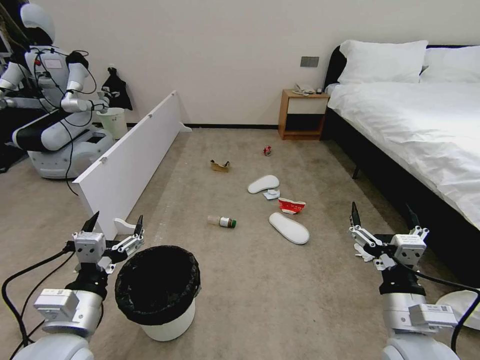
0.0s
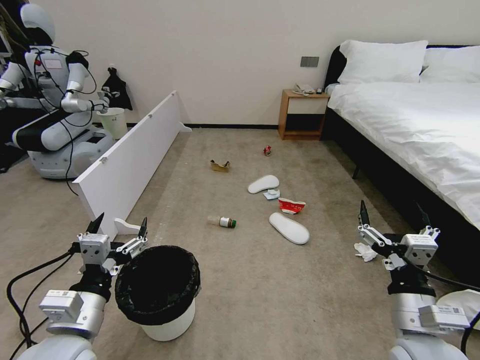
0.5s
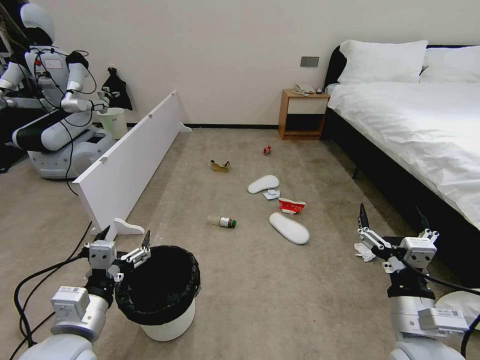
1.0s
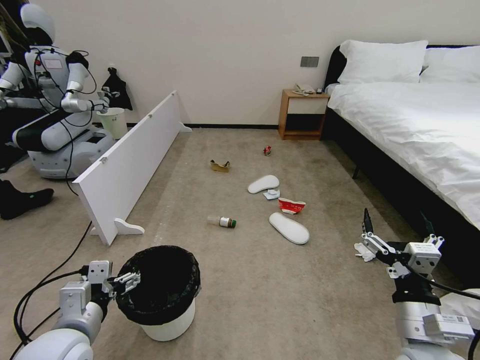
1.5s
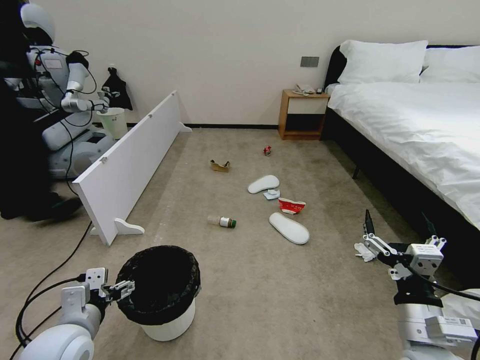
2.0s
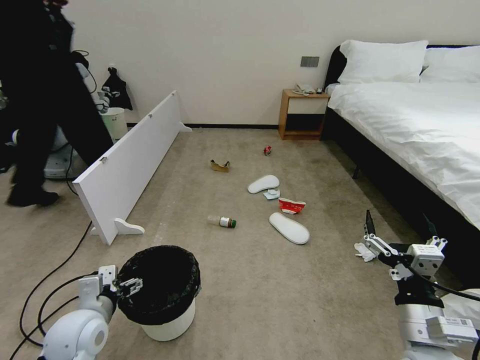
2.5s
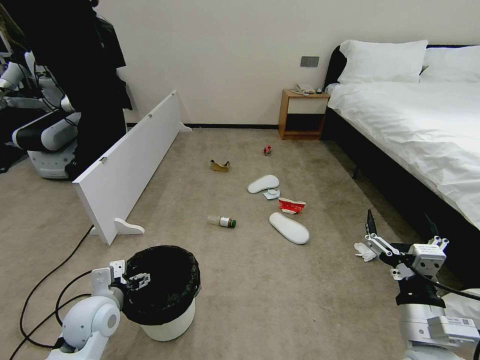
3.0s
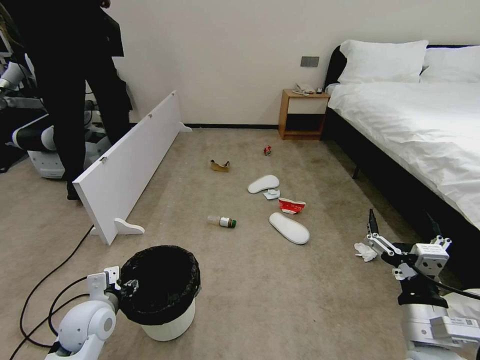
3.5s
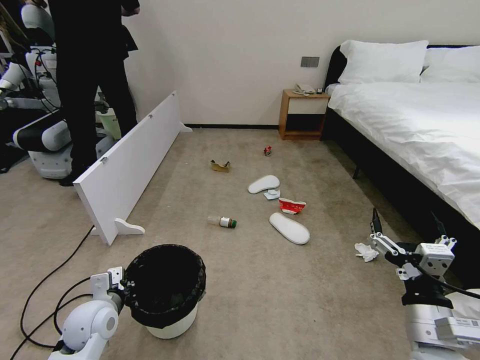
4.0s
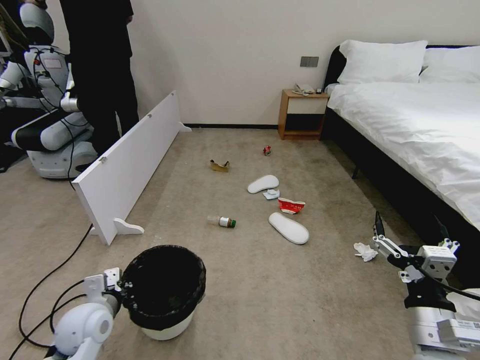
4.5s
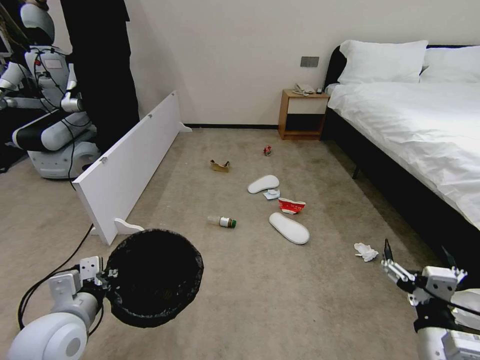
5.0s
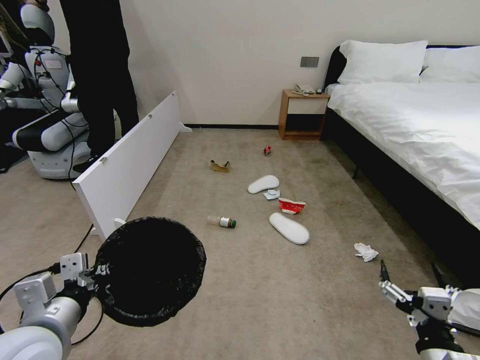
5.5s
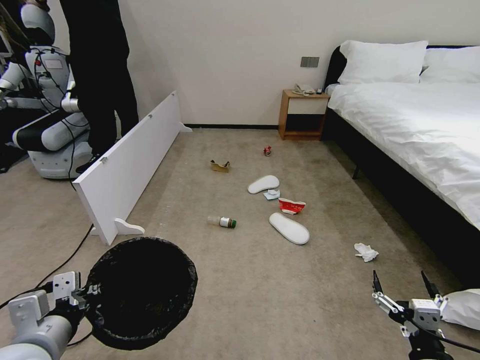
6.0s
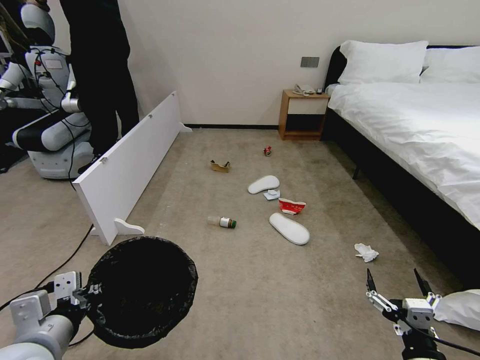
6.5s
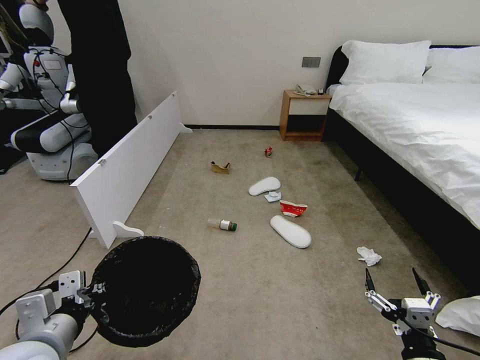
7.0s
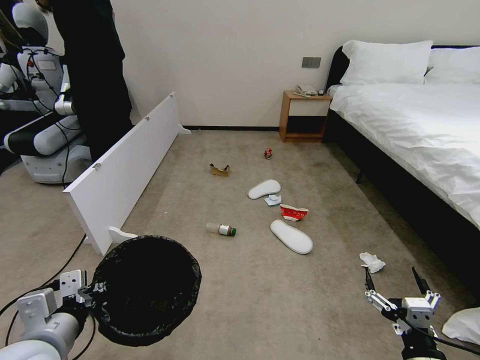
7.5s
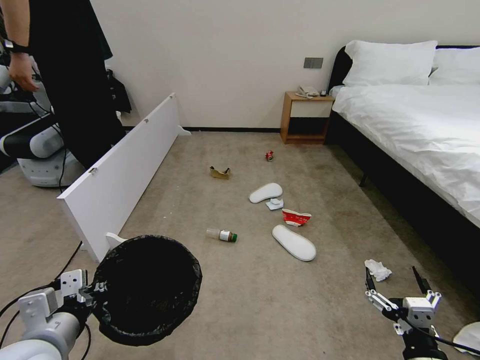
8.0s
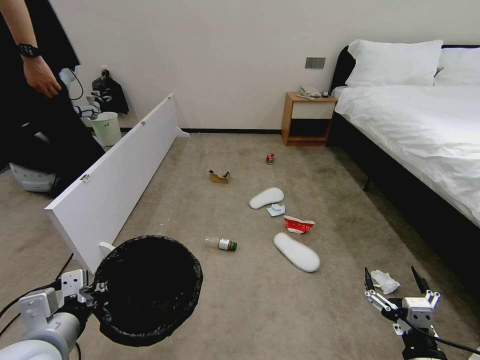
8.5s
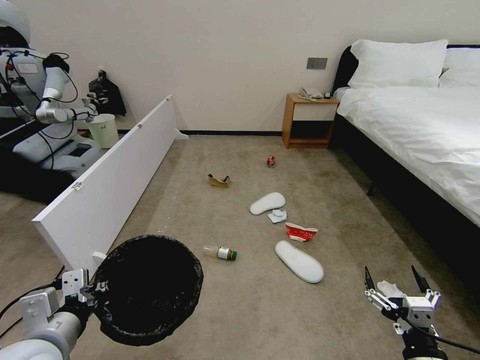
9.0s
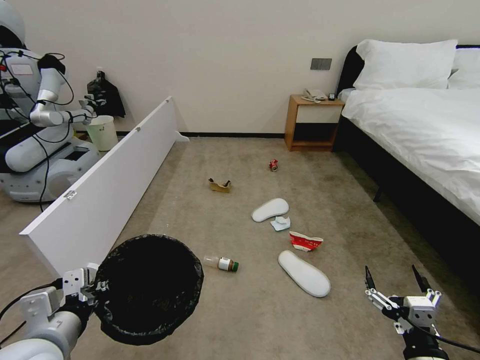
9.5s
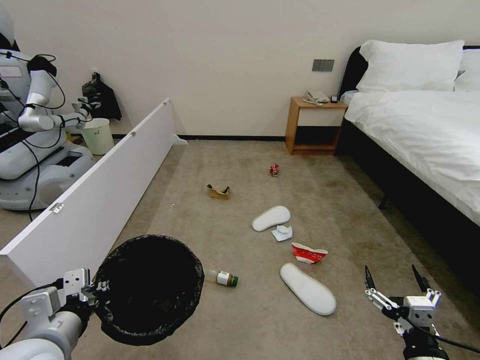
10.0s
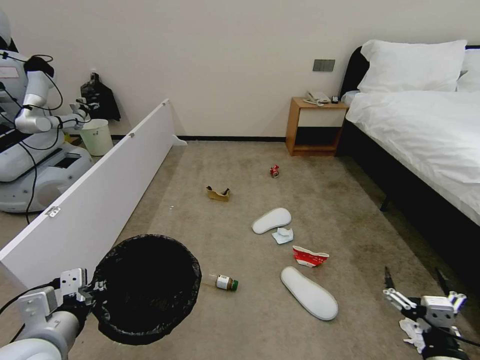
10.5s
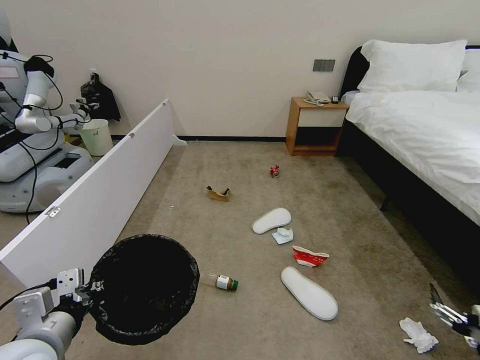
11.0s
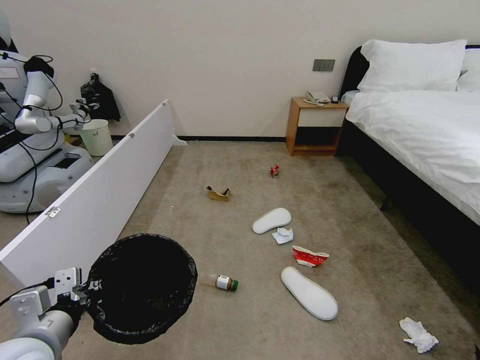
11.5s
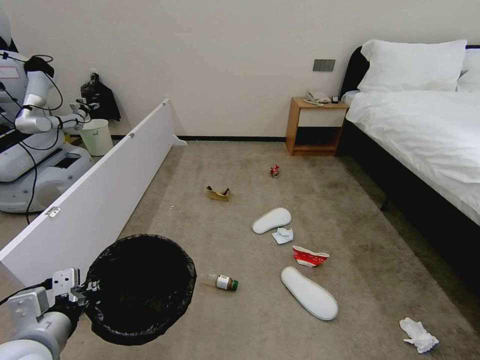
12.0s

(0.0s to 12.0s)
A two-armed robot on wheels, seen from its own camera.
Task of the whole recording: Pick up the trash bin, then pick up the garbage from the floor and place it into the trash bin.
2.0s - 4.0s: The left gripper moves forward and downward, about 10 cm, and closes its fingers.
4.0s - 6.0s: The left gripper goes some 20 cm upward and backward. Meanwhile the right gripper is displaced downward and backward by about 10 cm.
10.0s - 12.0s: The right gripper shifts some 25 cm to the right and downward.

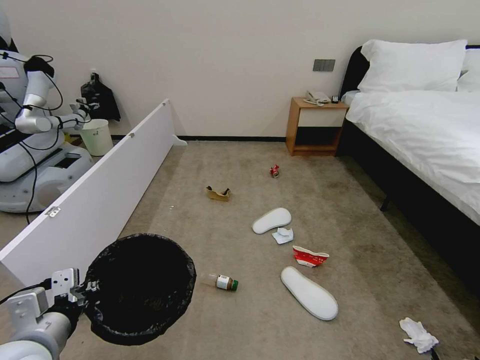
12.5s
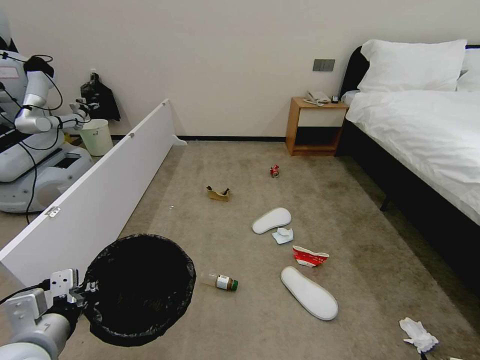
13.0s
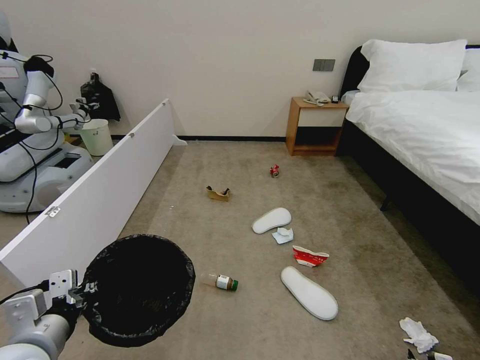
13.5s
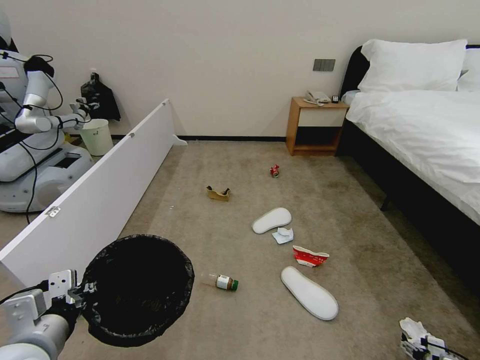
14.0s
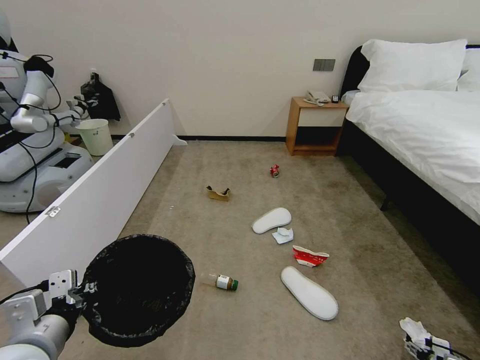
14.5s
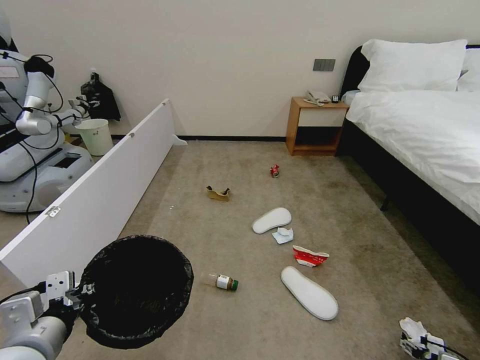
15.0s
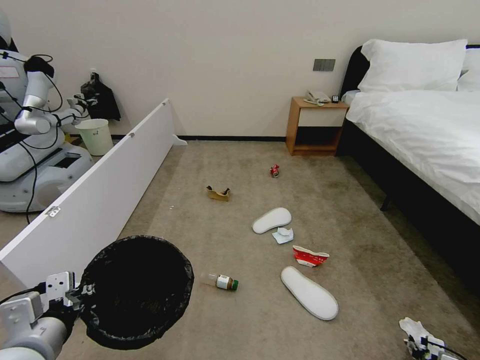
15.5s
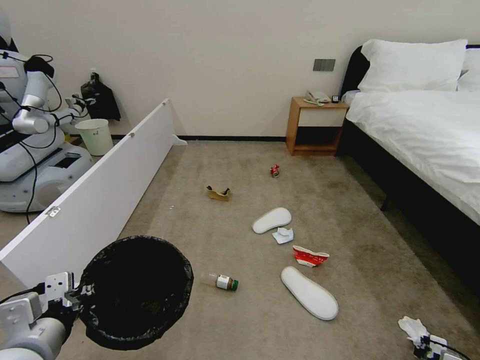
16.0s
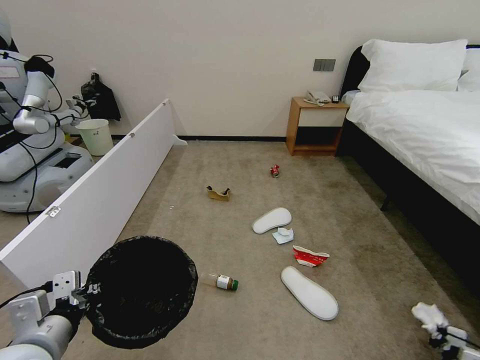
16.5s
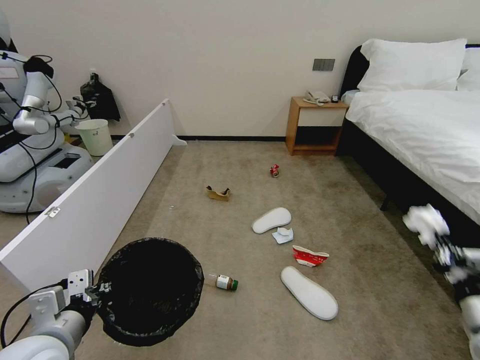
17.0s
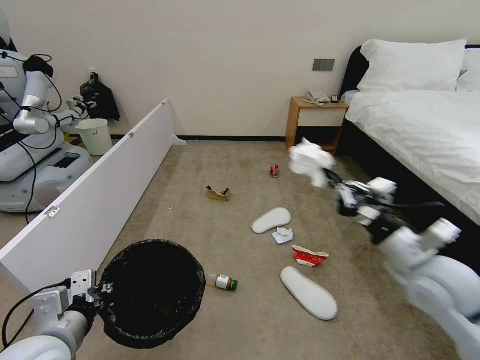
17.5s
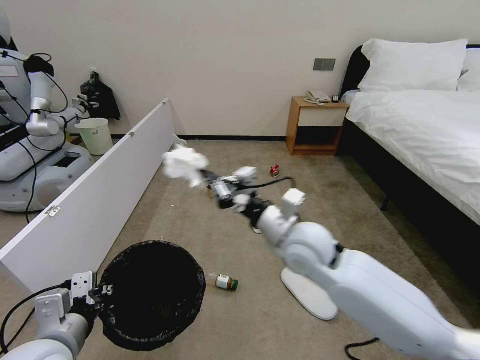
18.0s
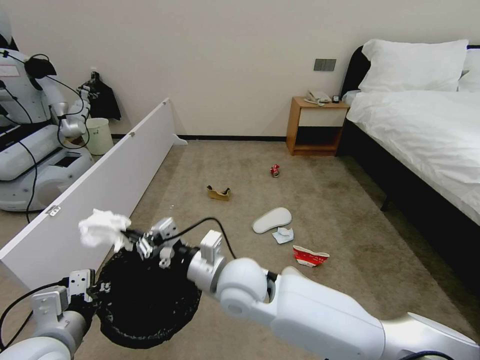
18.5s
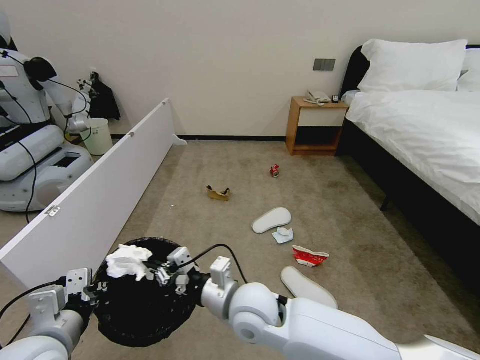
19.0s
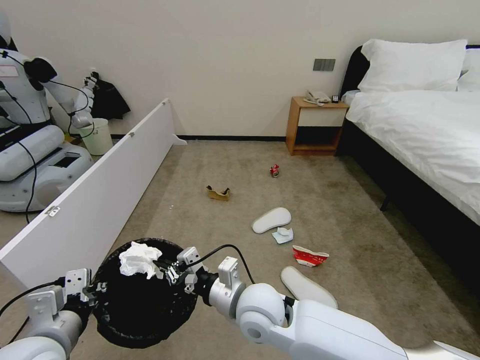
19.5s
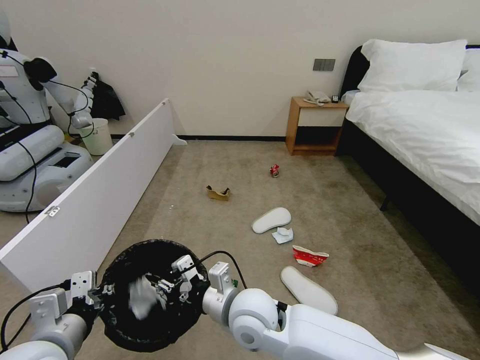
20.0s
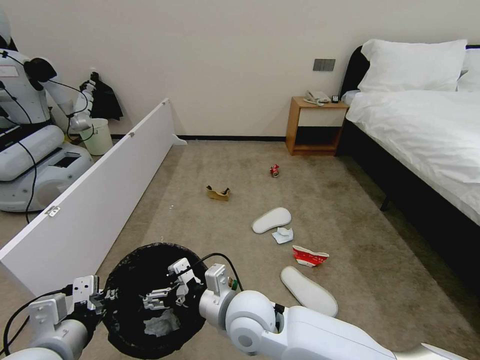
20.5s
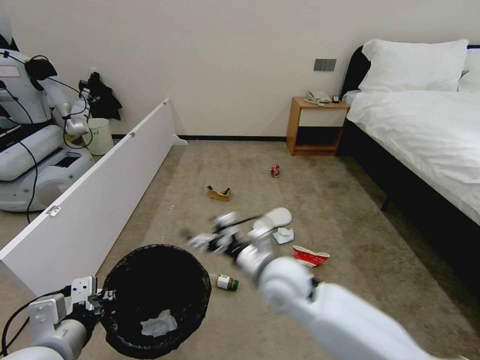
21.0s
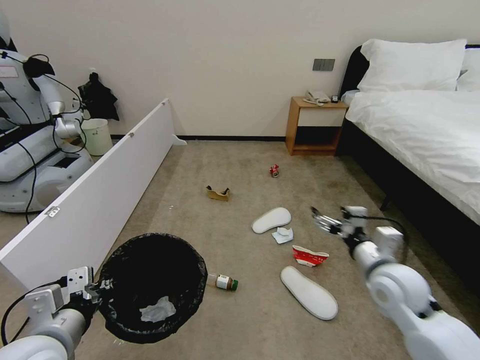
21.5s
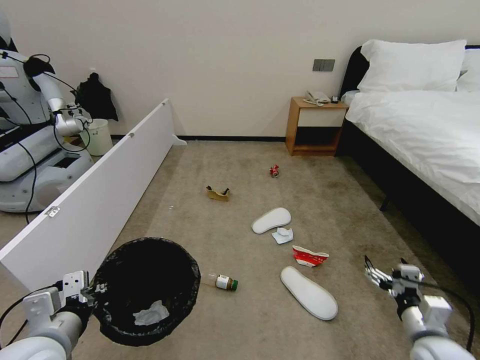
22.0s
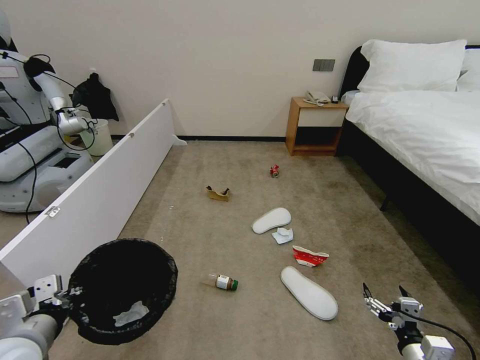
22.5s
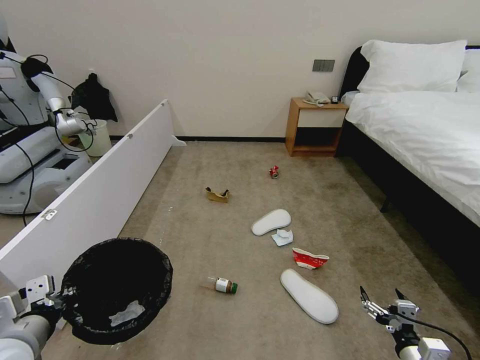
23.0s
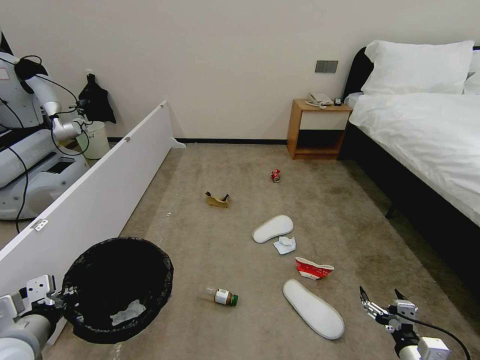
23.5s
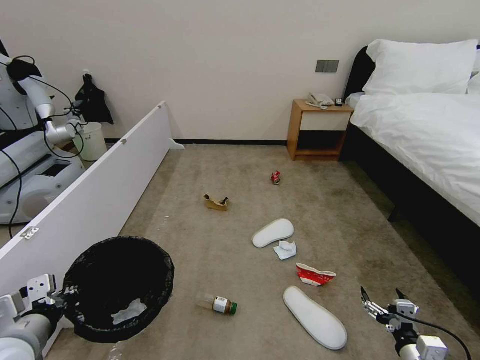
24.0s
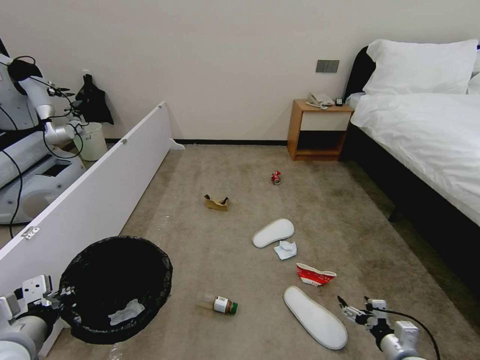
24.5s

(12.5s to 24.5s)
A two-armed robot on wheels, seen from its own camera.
Task of the whole recording: Pick up the trash bin, then pick up the garbage from the floor and place it into the trash bin.
14.5s - 16.5s: The right gripper closes its fingers.
16.5s - 18.5s: The right gripper heads to the left and upward, covering approximately 60 cm.
18.5s - 20.5s: The right gripper goes about 10 cm downward and backward, and opens.
20.5s - 22.5s: The left gripper moves to the left, about 5 cm. The right gripper heads to the right, covering about 35 cm.
22.5s - 24.5s: The right gripper goes approximately 10 cm downward and forward.

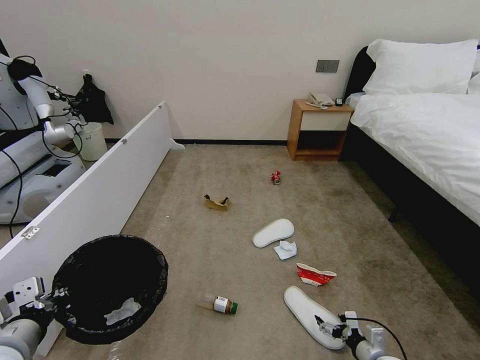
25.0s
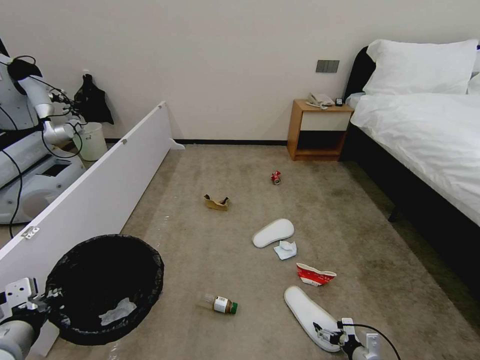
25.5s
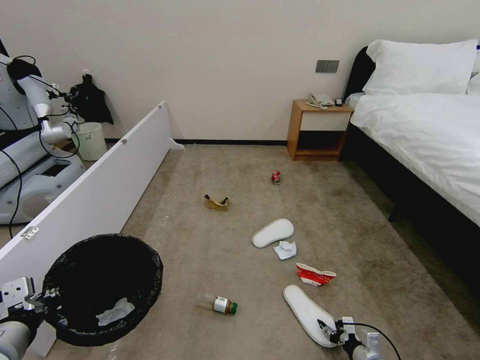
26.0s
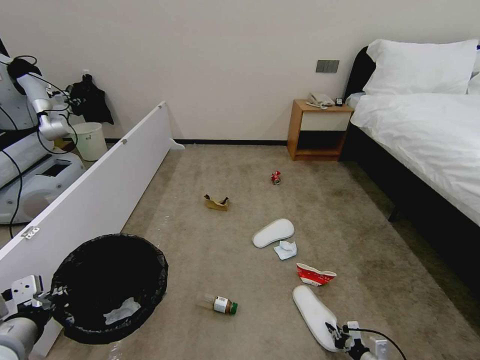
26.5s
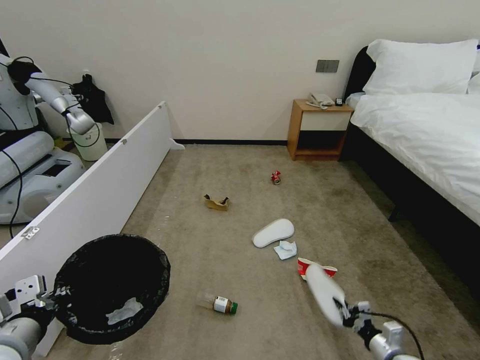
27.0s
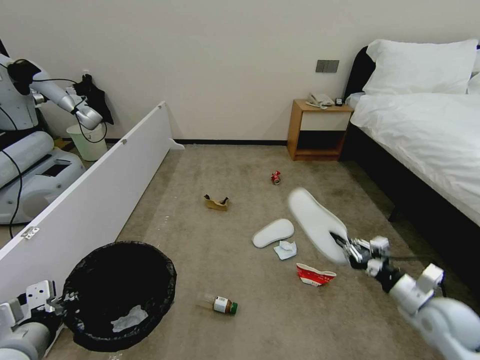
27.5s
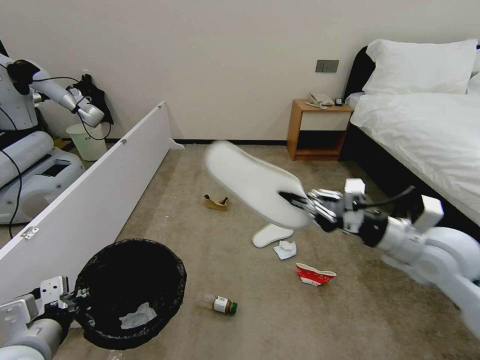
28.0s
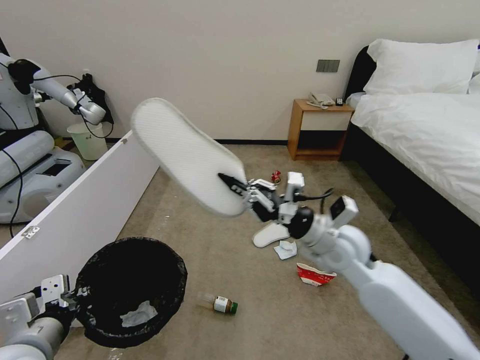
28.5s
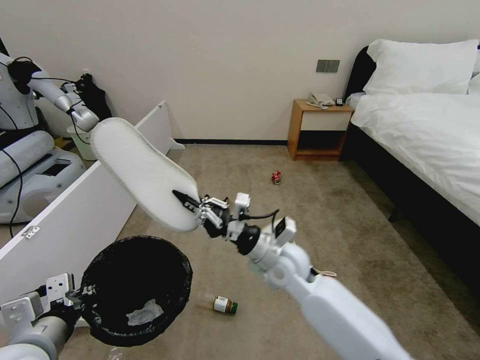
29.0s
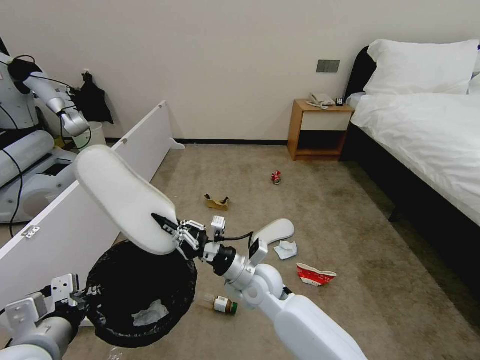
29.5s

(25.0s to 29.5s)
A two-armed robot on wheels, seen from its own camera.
Task of the whole recording: Pick up the trash bin, then pick up the garbage from the floor and place it into the trash bin.
25.0s - 27.0s: The right gripper closes.
27.0s - 29.5s: The right gripper shifts about 40 cm to the left and upward.
